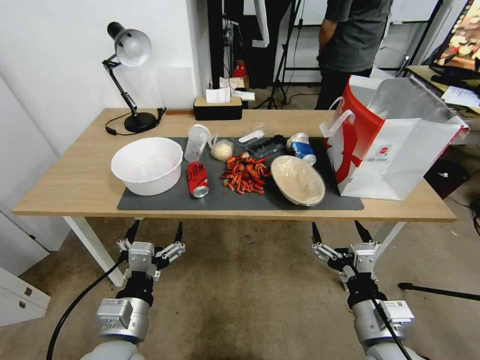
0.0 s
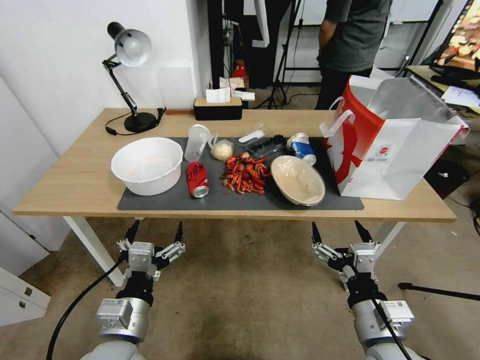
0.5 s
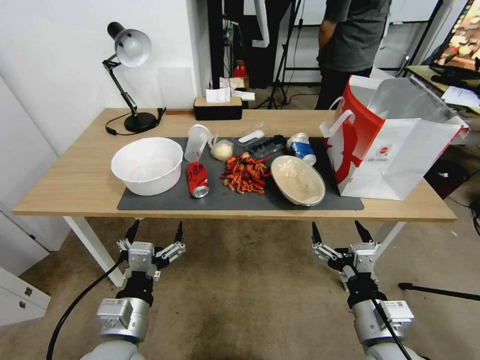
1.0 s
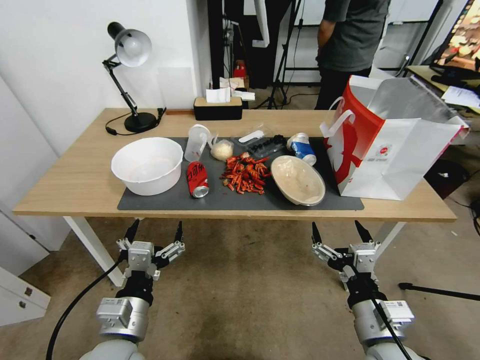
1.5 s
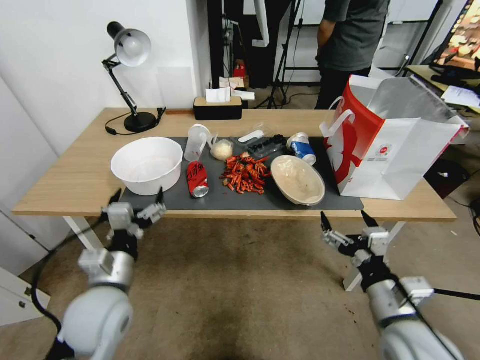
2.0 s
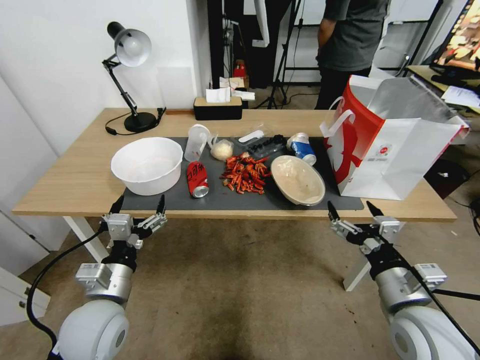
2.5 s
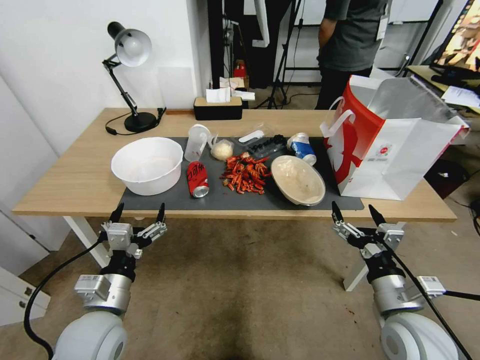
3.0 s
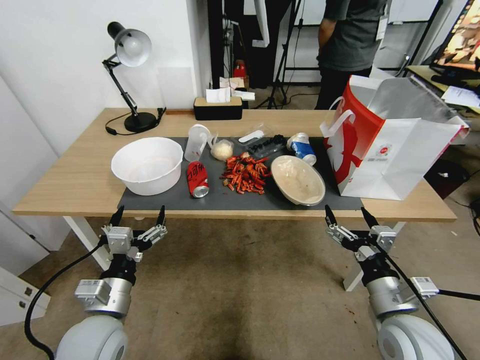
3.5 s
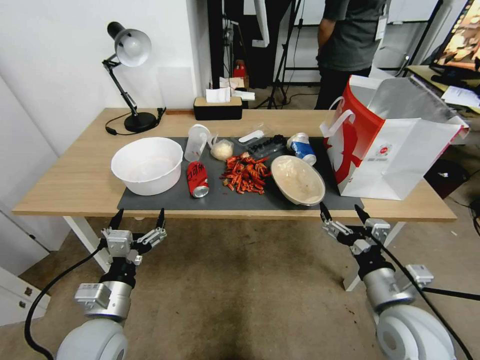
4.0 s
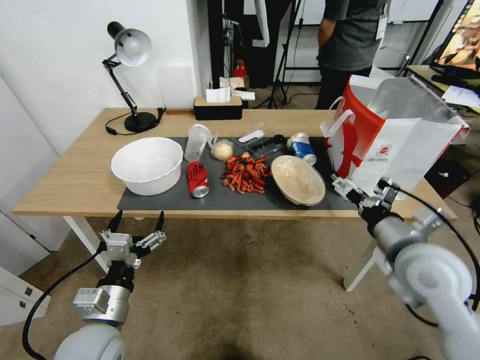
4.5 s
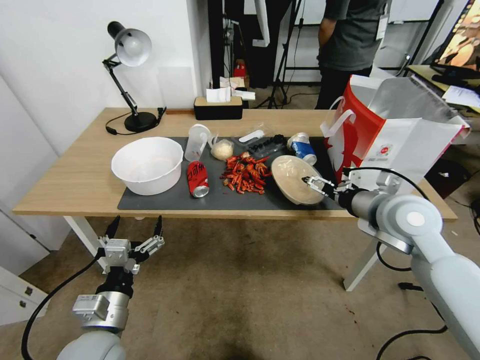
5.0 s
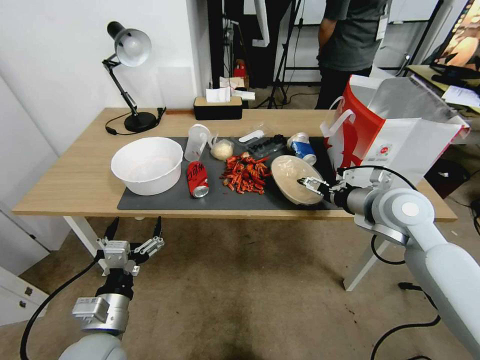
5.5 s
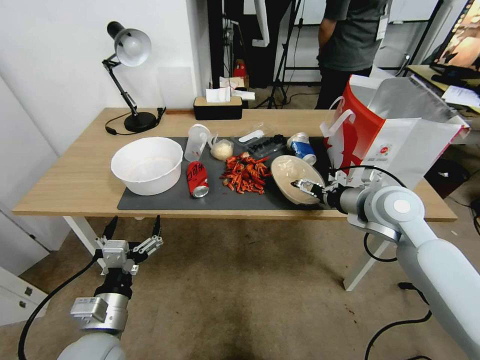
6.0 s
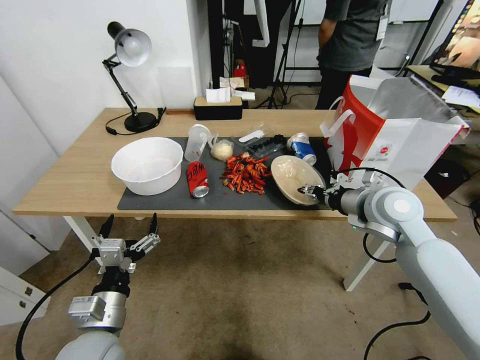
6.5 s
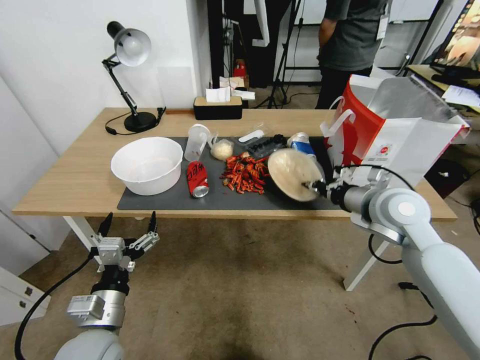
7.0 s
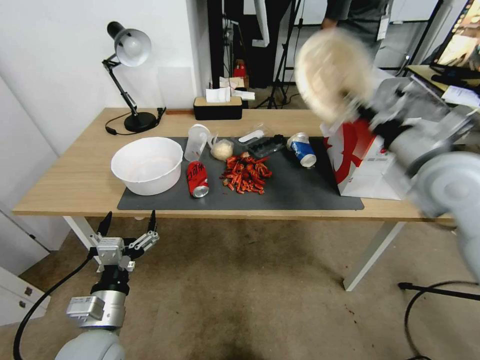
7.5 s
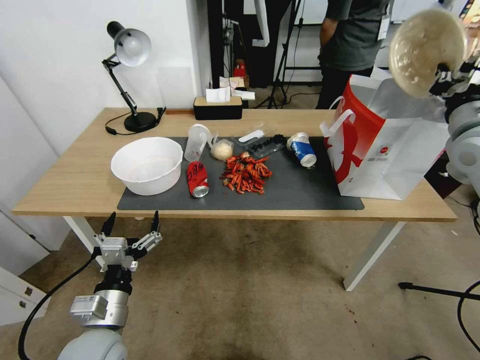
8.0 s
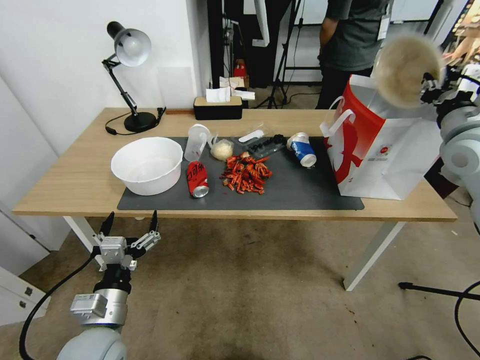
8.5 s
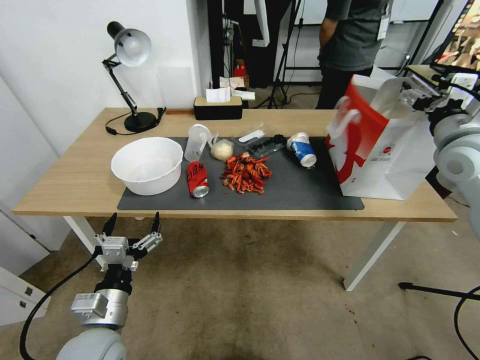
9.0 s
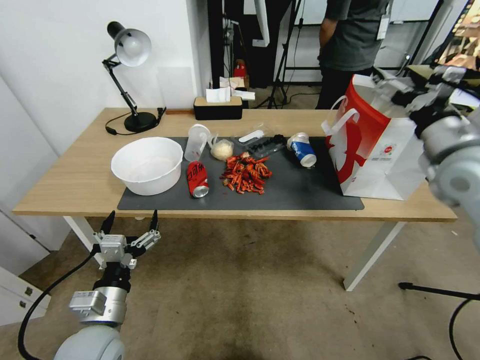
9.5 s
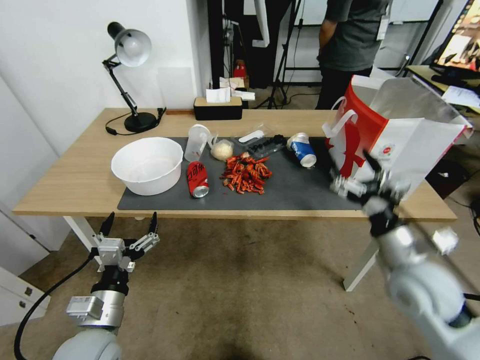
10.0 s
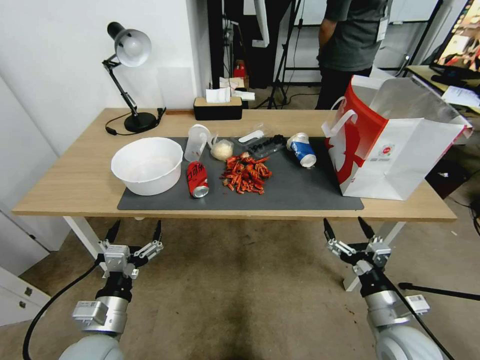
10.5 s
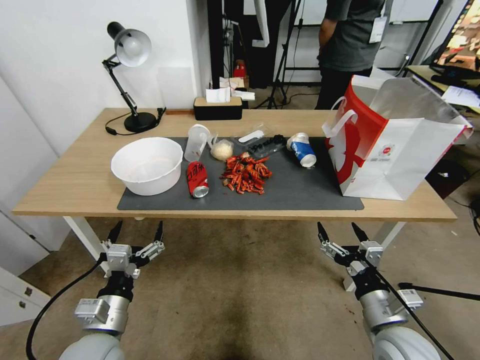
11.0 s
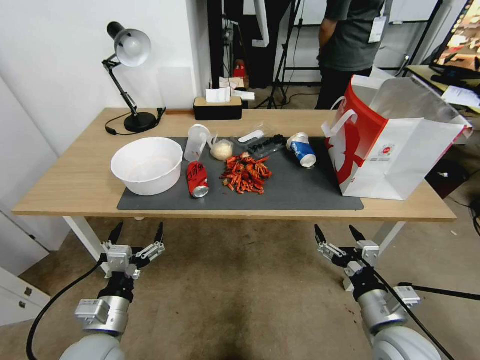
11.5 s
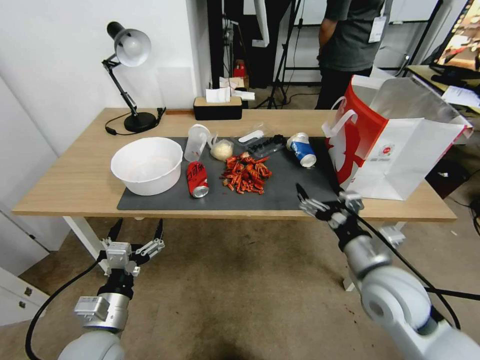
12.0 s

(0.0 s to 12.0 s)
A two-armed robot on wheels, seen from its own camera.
2.0 s - 4.0 s: The left gripper changes place by some 5 cm.
4.0 s - 6.0 s: The right gripper shifts about 20 cm forward and upward.
6.0 s - 8.0 s: The right gripper travels upward and to the right by some 15 cm, and closes up.
8.0 s - 10.0 s: The right gripper is displaced downward, backward and to the left by about 25 cm, and opens up.
10.0 s - 12.0 s: The right gripper is displaced to the left by about 5 cm, and goes downward and returns, approximately 10 cm each way.

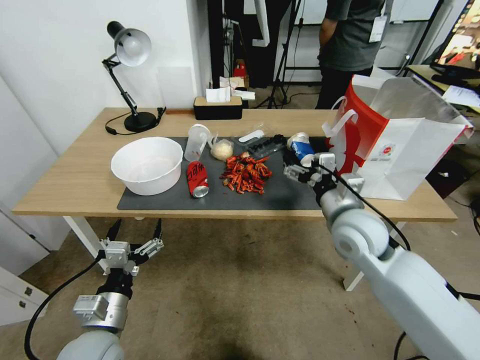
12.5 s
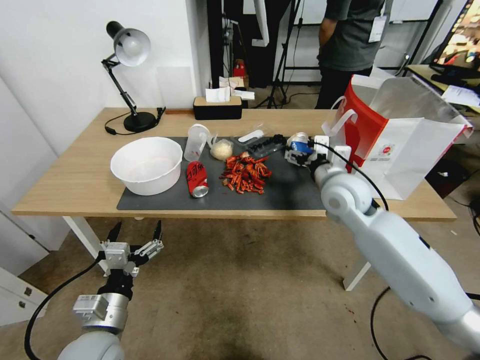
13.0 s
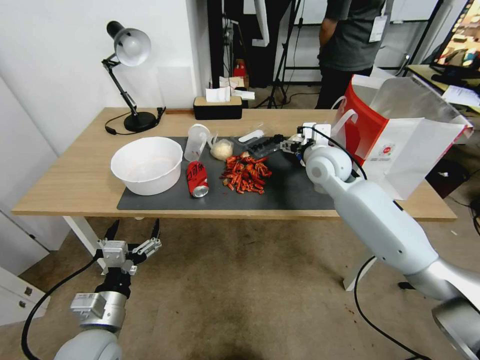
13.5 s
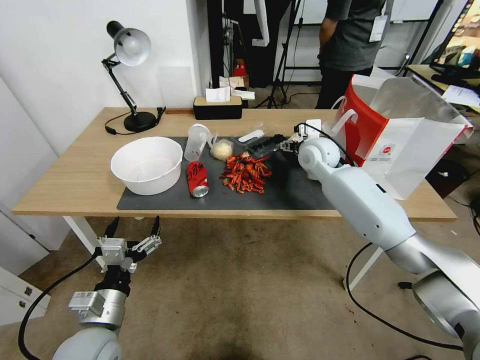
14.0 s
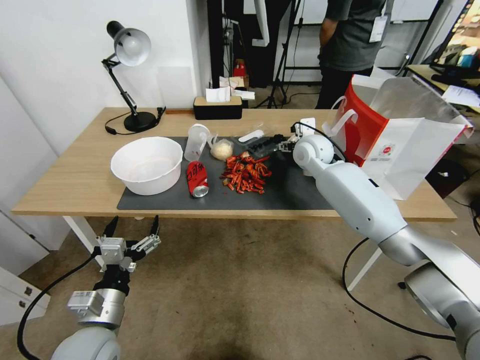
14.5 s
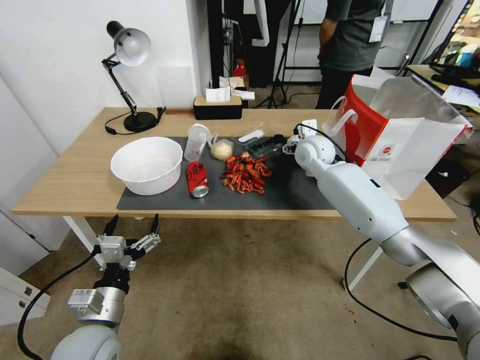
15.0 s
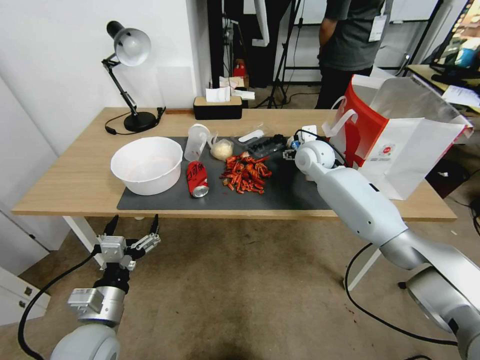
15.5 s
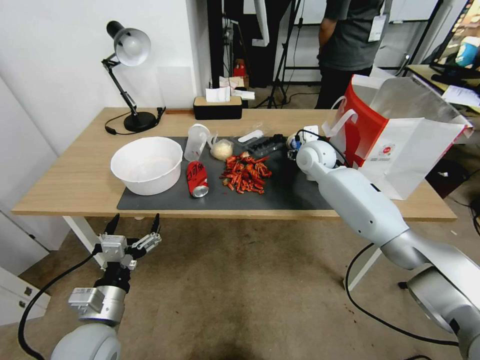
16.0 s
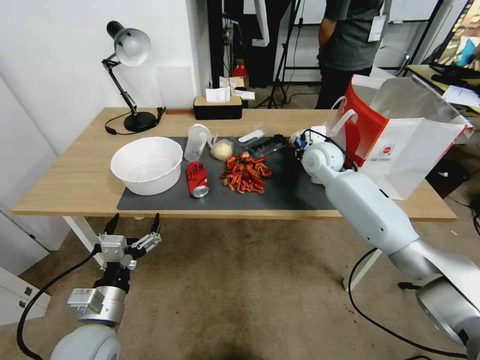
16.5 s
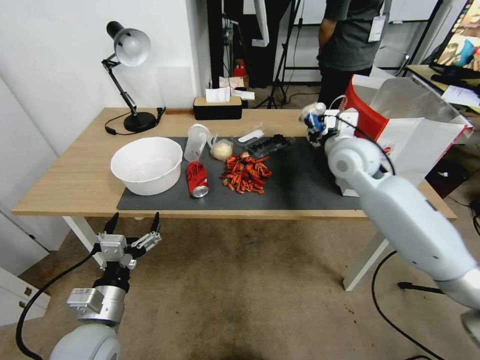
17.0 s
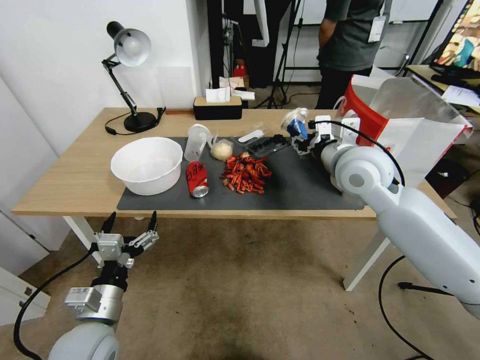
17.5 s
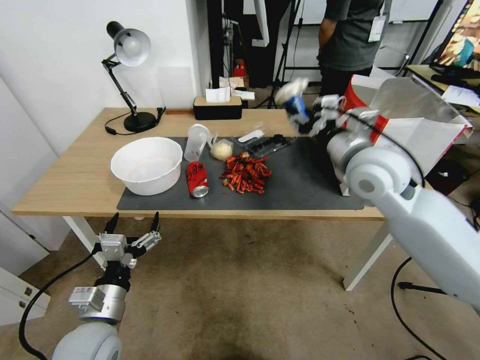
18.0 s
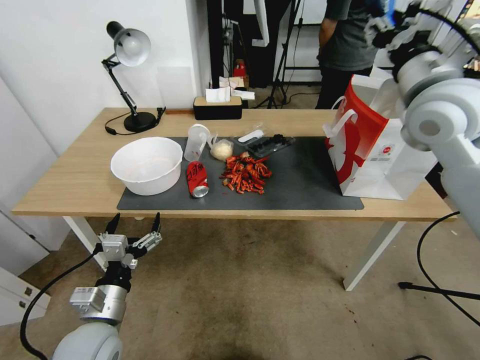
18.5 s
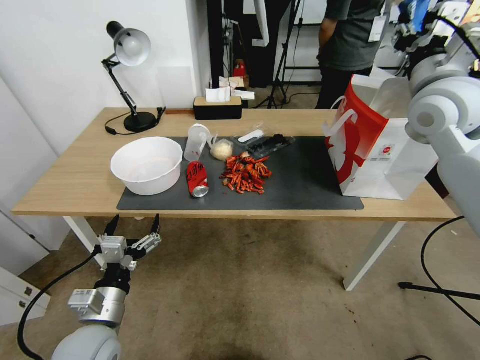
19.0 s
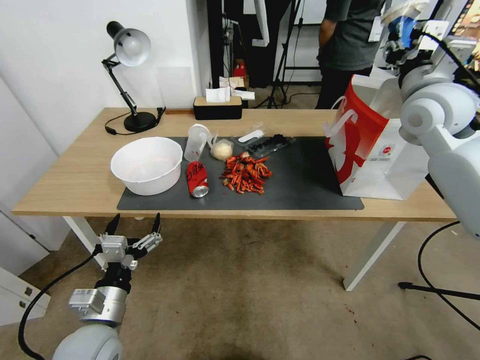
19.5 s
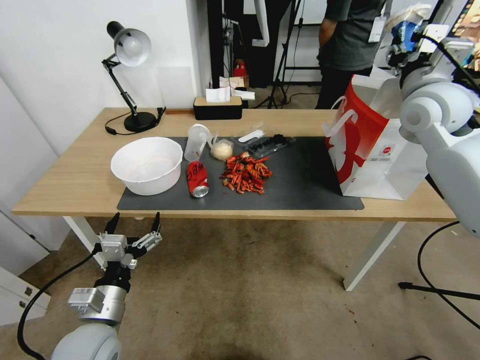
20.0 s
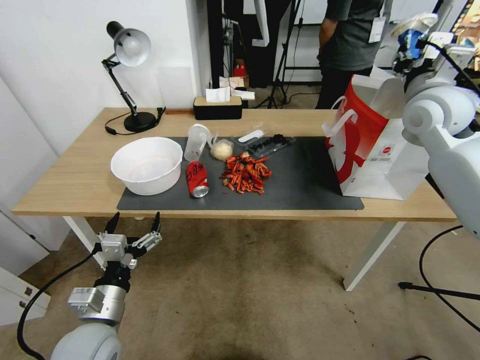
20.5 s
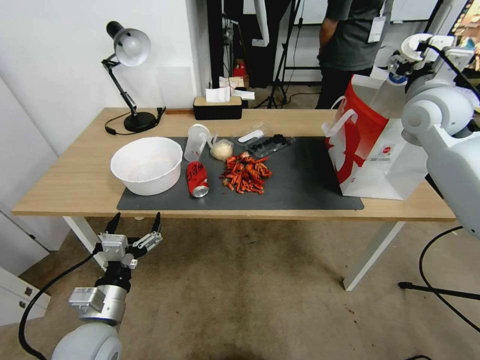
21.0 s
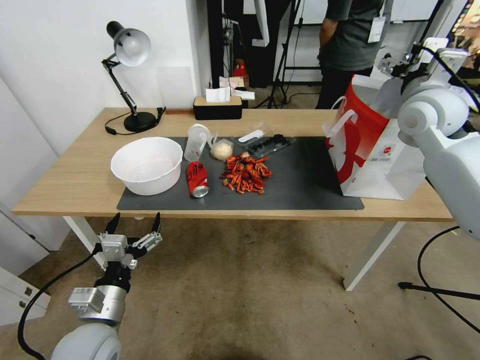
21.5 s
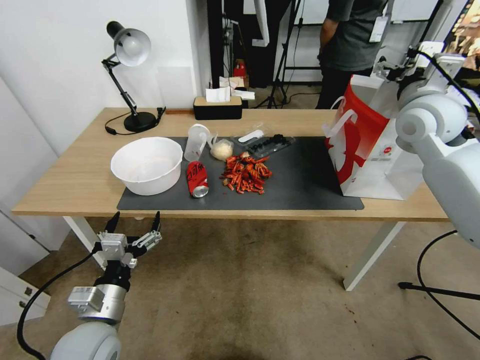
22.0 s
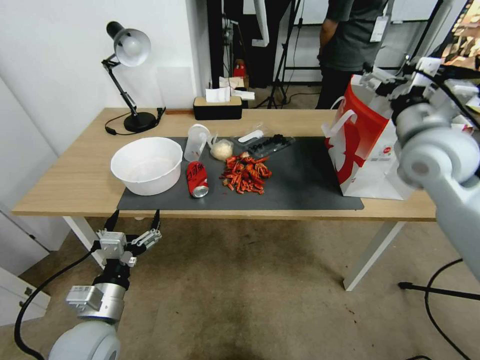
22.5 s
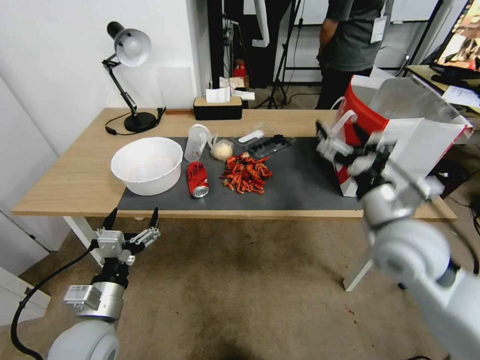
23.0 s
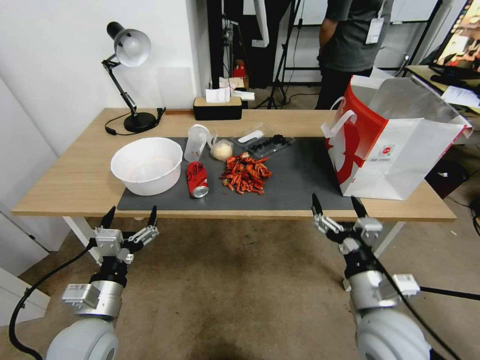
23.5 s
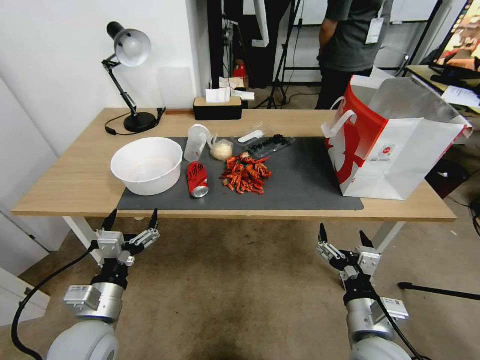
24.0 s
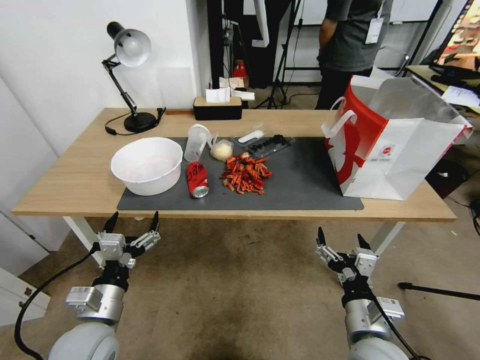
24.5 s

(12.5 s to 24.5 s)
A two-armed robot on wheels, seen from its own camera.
12.5 s - 14.5 s: The right gripper shifts about 20 cm forward.
14.5 s - 16.5 s: The right gripper closes up.
16.5 s - 18.5 s: The right gripper goes some 25 cm upward and backward.
18.5 s - 20.5 s: The right gripper heads forward and to the right, covering about 10 cm.
20.5 s - 22.5 s: The right gripper goes some 10 cm backward, and opens its fingers.
22.5 s - 24.5 s: The right gripper heads downward and backward, covering roughly 35 cm.

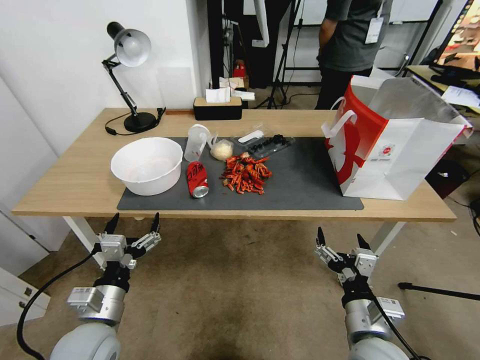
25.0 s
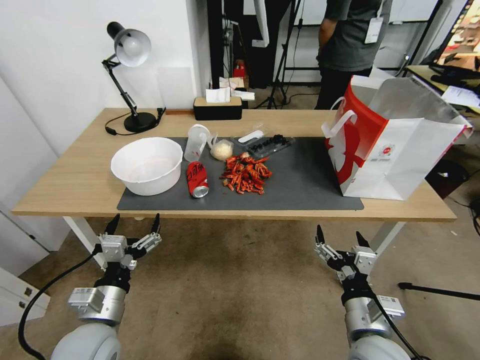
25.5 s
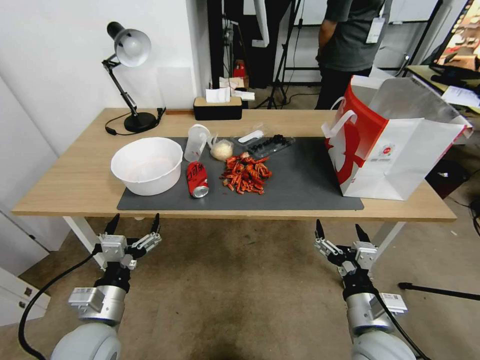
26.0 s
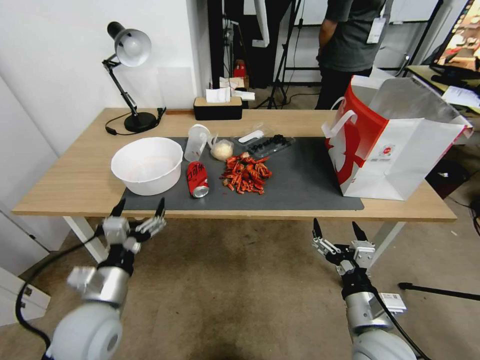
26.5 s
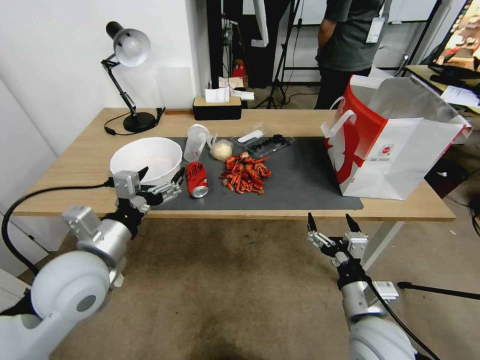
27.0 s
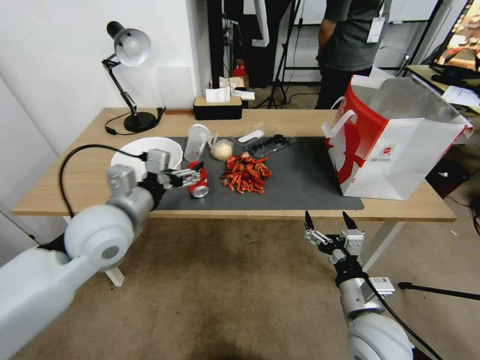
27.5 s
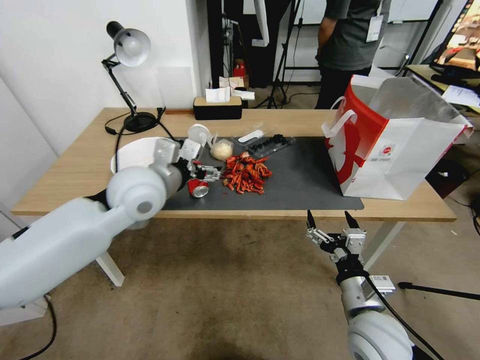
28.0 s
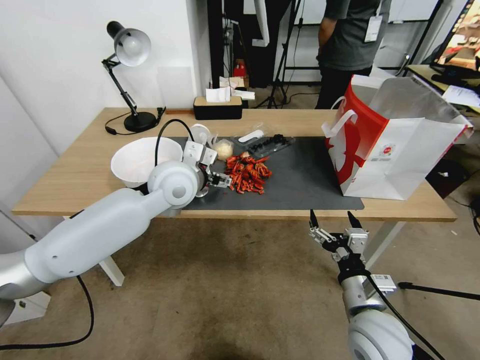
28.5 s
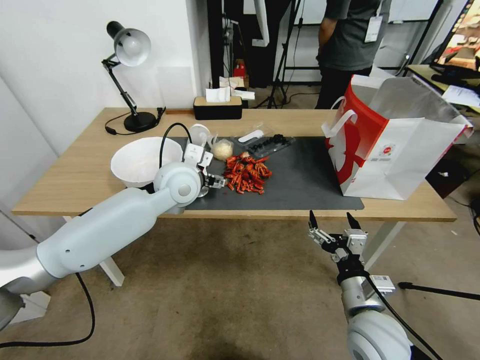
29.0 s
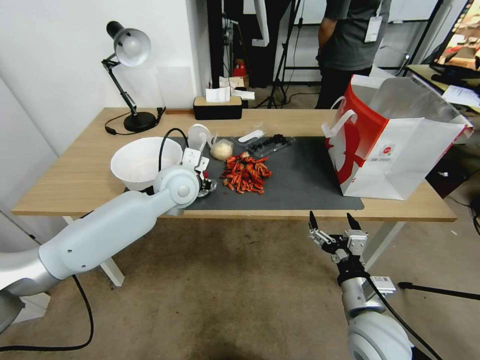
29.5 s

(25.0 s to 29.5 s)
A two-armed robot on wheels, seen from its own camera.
25.0 s - 27.0 s: The left gripper is displaced upward and forward by approximately 15 cm.
27.0 s - 29.5 s: The left gripper moves forward and to the right, some 25 cm, and closes.
